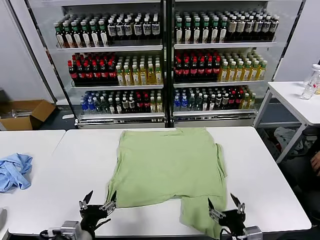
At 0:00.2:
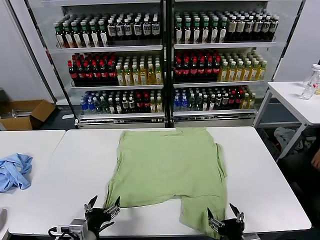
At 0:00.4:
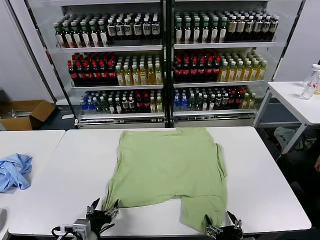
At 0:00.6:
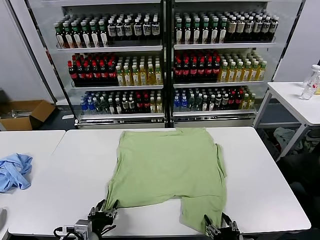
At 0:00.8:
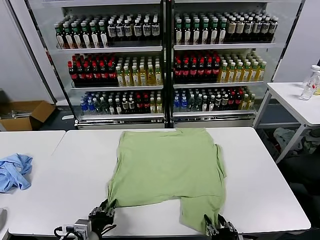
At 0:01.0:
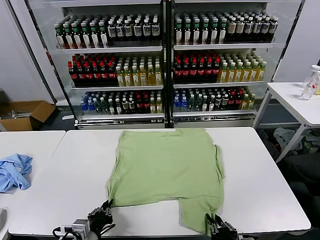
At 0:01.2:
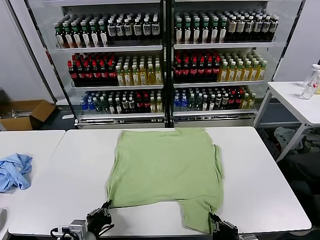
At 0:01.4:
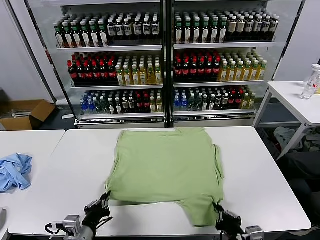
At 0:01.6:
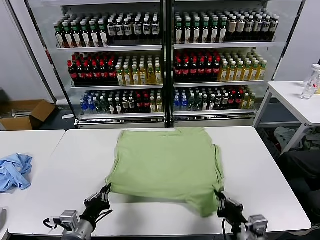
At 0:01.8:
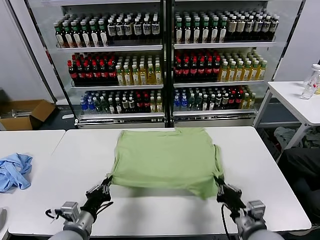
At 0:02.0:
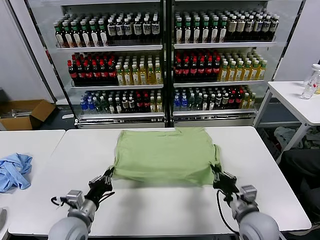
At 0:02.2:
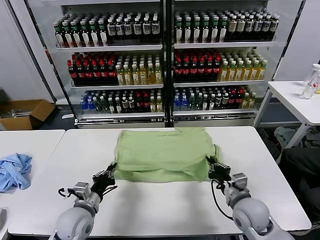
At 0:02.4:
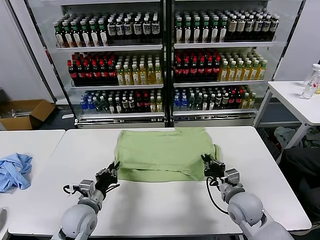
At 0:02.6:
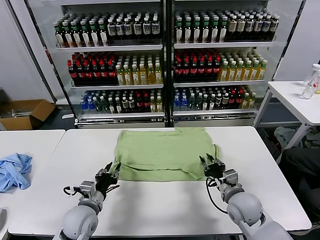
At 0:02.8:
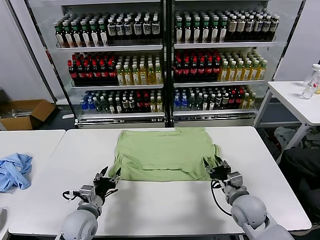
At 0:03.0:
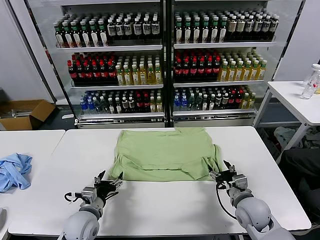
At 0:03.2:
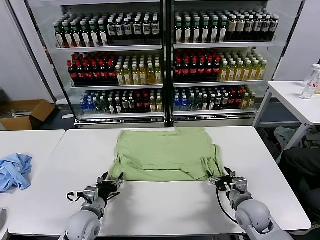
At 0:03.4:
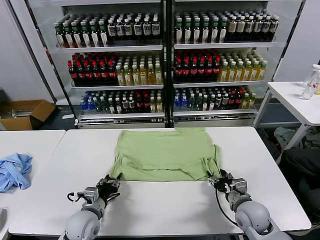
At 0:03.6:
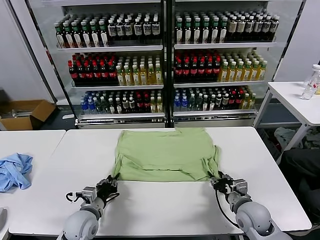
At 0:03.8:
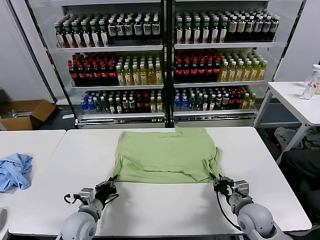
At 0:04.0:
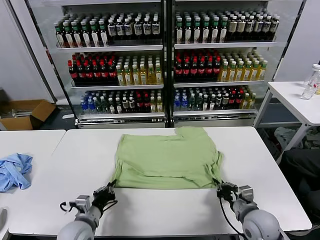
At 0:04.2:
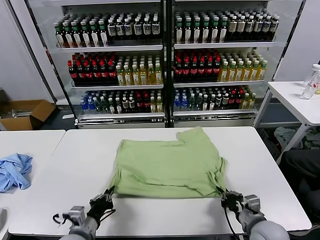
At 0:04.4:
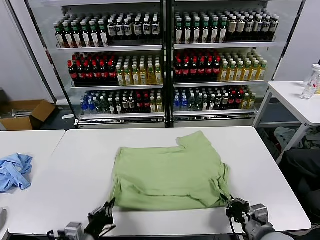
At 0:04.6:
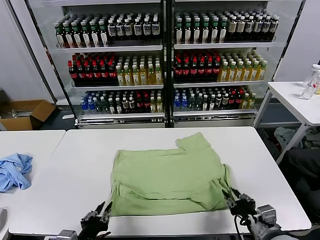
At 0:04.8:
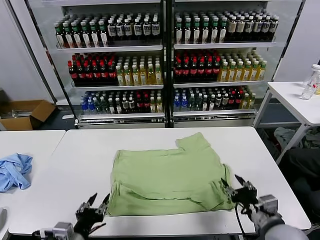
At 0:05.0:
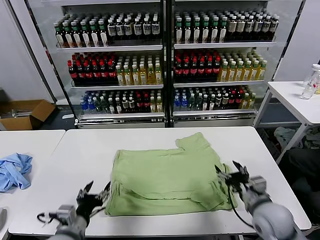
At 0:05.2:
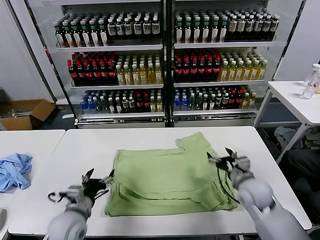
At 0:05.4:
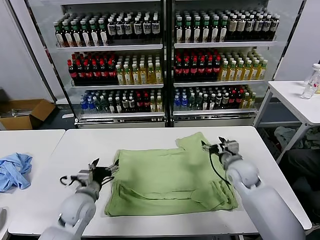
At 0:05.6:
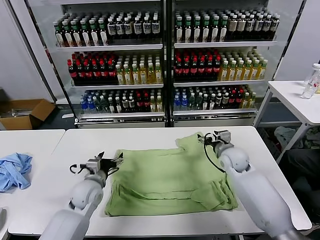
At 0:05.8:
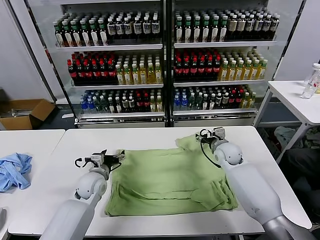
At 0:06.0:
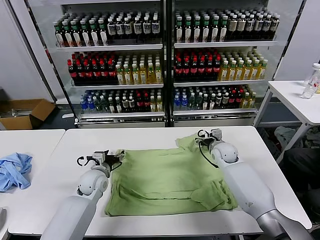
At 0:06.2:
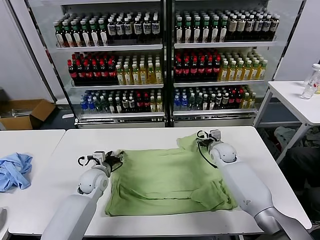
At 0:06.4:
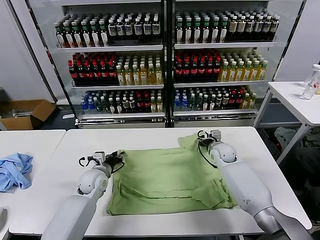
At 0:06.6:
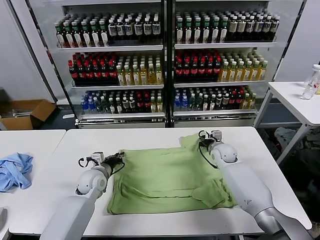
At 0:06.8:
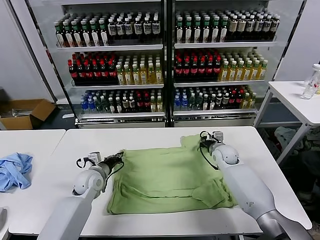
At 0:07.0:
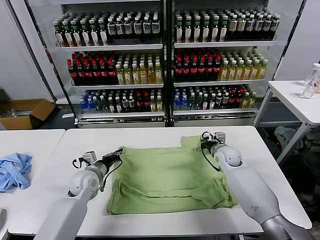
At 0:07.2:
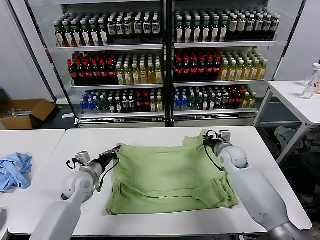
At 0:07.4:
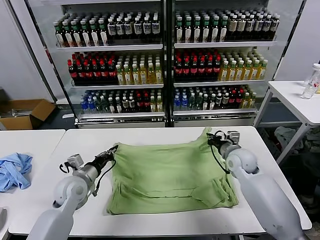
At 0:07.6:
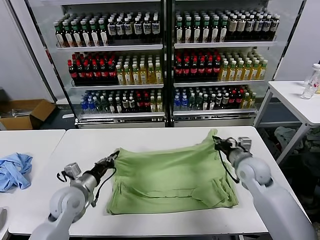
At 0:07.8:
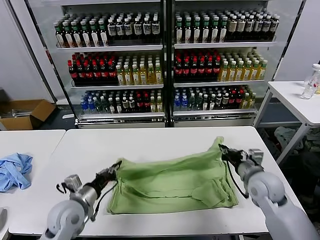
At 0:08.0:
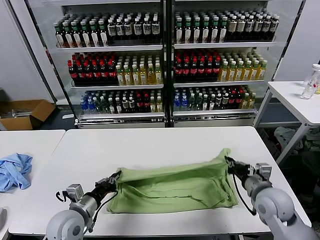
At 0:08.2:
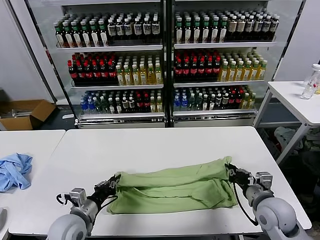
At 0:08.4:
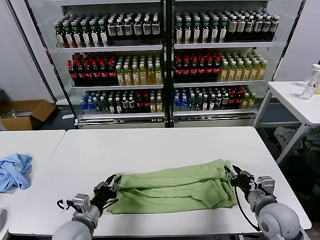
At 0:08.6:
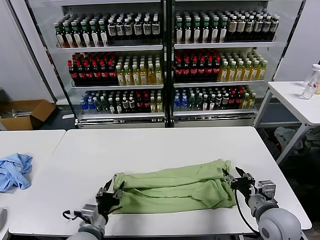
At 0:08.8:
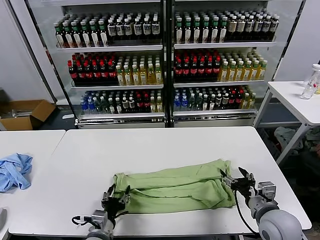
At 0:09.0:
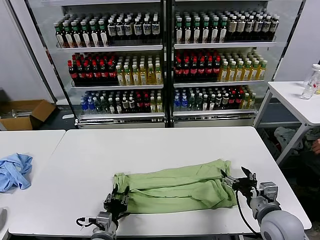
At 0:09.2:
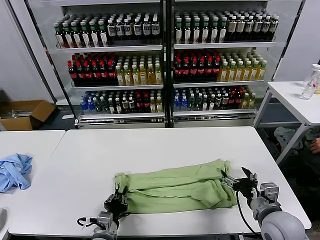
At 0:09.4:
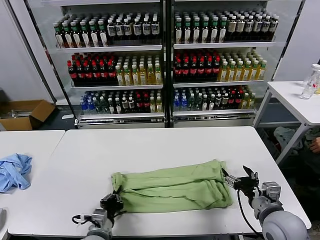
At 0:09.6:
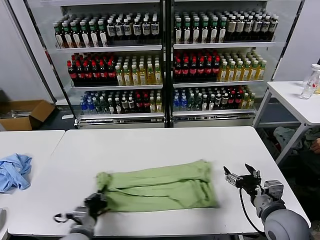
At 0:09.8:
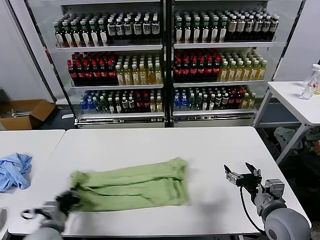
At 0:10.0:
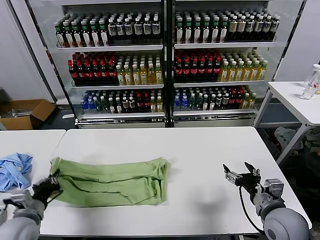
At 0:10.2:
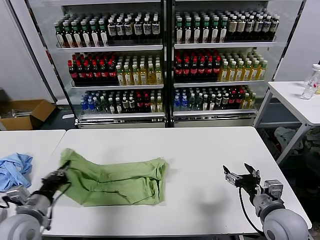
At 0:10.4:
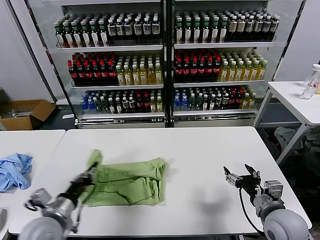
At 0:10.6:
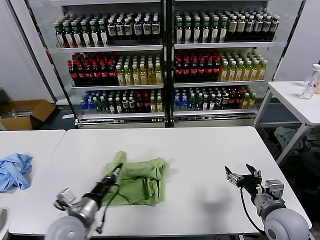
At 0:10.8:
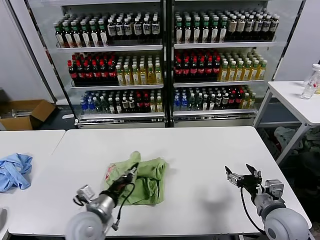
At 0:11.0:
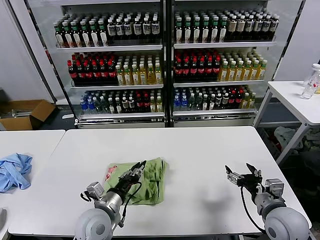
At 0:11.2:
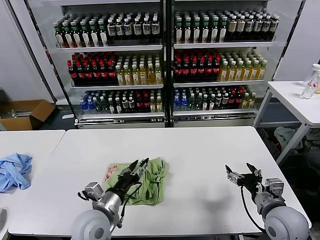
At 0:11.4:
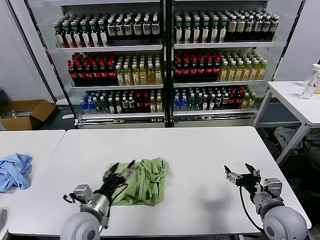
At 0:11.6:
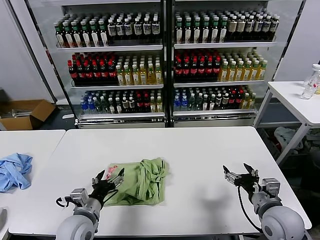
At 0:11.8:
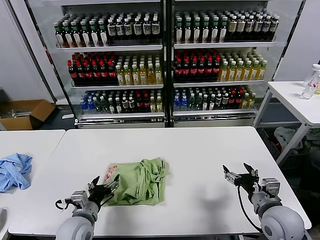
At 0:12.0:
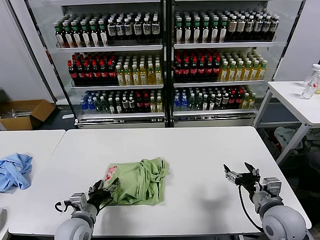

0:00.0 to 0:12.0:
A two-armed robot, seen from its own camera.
Task of the whole recording: fold and organize the clothes.
Step, 0:00.0 to 0:01.2: use both grippers simultaneously to clamp the lower edge of the clothing fabric.
Step, 0:01.4 to 0:02.6: use both grippers to drag the lower edge of the fabric forward and fold it over the upper edge.
Step, 0:02.8 to 0:04.6: Drag the clothes downward with both gripper.
Step, 0:04.8 to 0:06.8: use both grippers simultaneously to clamp the upper edge of the clothing fabric.
Step, 0:07.0 to 0:08.4: use both grippers to drag the upper edge of the fabric backward and fold it over the lower edge.
Step, 0:08.6 to 0:09.2: use the left gripper to clamp the left edge of the fabric.
Step, 0:09.6 to 0:11.0: use the left gripper to drag the left edge of the fabric to the left and folds it over the right edge.
0:01.6 to 0:03.0: The grippers both shift forward and downward by approximately 10 cm. The right gripper opens. The left gripper opens its fingers.
0:03.0 to 0:04.4: The left gripper shifts about 10 cm backward, and closes. Meanwhile the right gripper moves backward and upward, some 15 cm, and closes its fingers.
0:04.4 to 0:06.0: Both grippers travel together forward, some 30 cm. The left gripper opens its fingers. Meanwhile the right gripper opens its fingers.
0:06.0 to 0:07.6: The right gripper is displaced backward and upward by about 15 cm, and closes up, while the left gripper shifts approximately 10 cm backward and upward, and closes.
0:07.6 to 0:09.0: The right gripper moves backward, roughly 15 cm, and opens its fingers, while the left gripper shifts roughly 20 cm backward, to the right and downward, and opens its fingers.
0:09.0 to 0:10.4: The left gripper moves to the left and upward, about 15 cm, and closes up.
0:10.4 to 0:12.0: The left gripper shifts some 10 cm downward and to the right, and opens.

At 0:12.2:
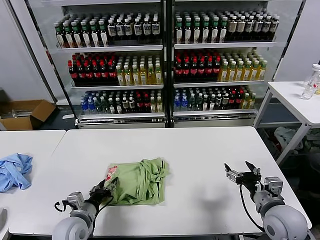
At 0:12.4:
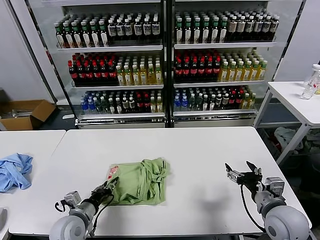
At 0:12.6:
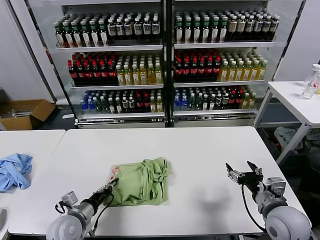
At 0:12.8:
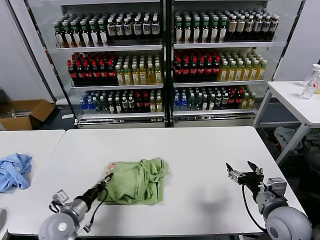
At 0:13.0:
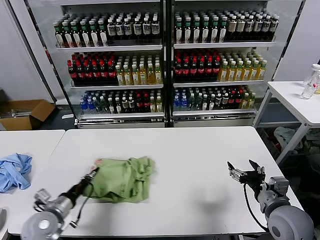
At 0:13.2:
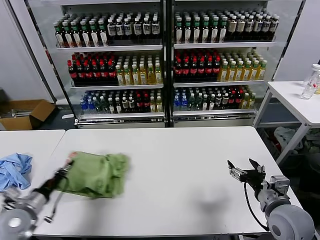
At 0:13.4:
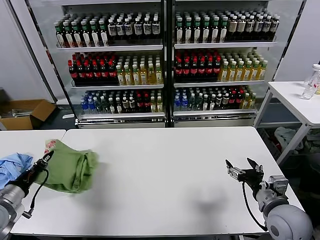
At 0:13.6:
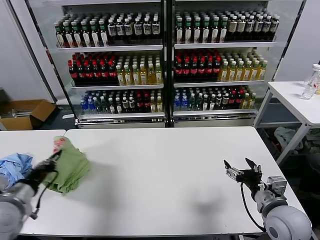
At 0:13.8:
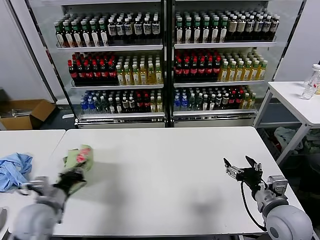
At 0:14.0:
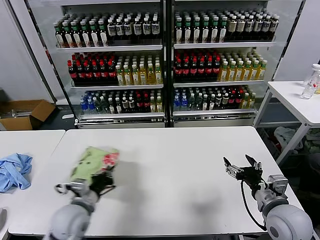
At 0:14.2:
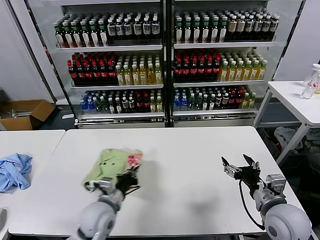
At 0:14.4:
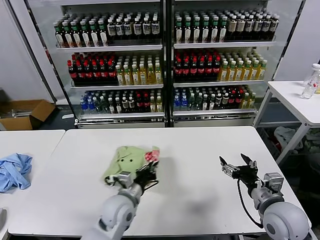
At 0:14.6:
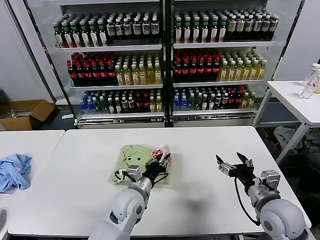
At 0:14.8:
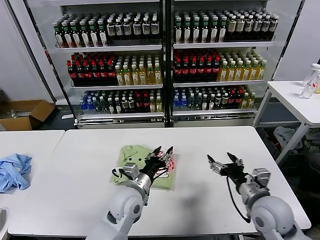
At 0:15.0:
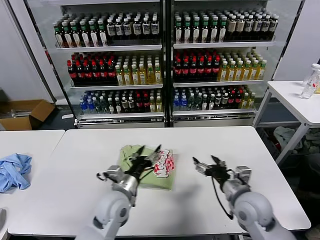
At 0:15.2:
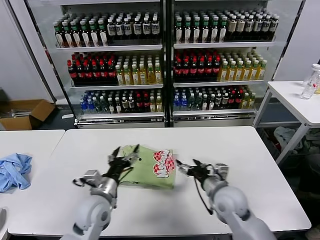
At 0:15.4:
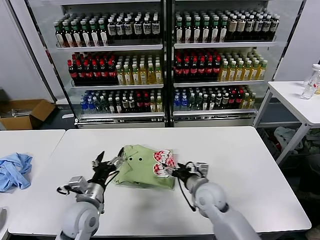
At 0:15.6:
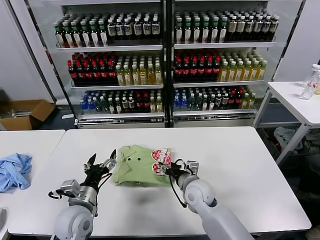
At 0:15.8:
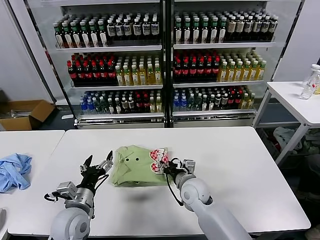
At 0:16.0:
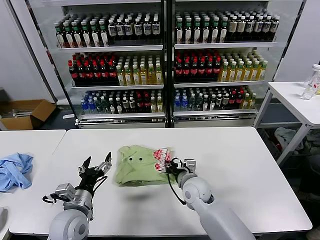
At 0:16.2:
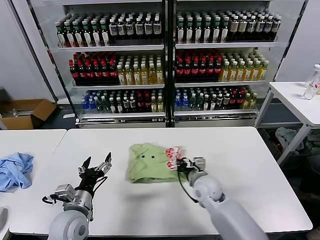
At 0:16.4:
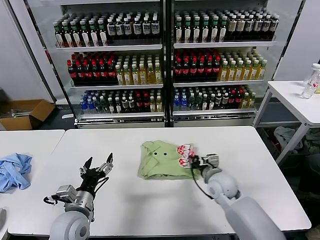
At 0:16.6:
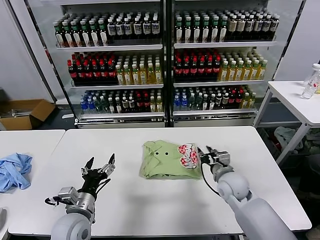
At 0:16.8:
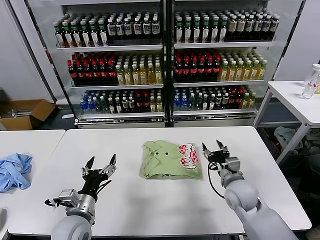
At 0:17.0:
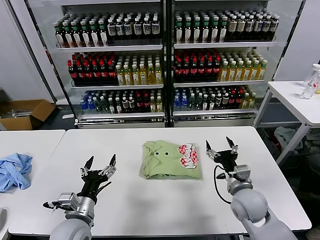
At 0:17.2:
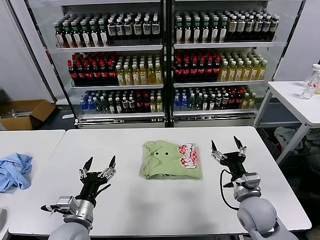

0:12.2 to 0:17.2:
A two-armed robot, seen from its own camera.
Task of the whole recording: fold and organize the clothes.
Step, 0:12.2 to 0:14.6: Flip the folded clothes over with left gripper.
Step, 0:14.8 to 0:16.4: Drag the clothes to the center of the table.
0:12.2 to 0:13.8: The left gripper shifts about 15 cm upward and to the left, and closes its fingers.
0:13.8 to 0:15.6: The left gripper shifts some 10 cm to the right, and opens. Meanwhile the right gripper shifts roughly 25 cm to the left, forward and downward.
0:15.6 to 0:17.2: The right gripper shifts some 15 cm to the right and backward, and closes, then opens again.
